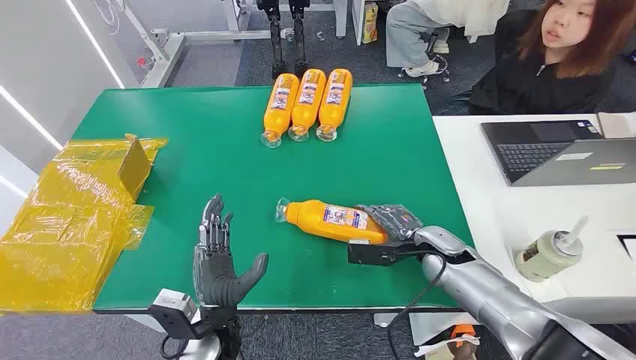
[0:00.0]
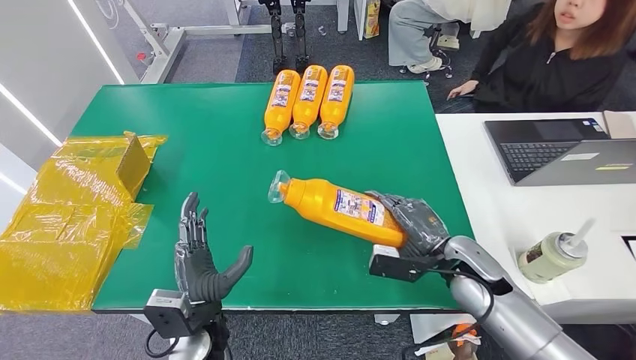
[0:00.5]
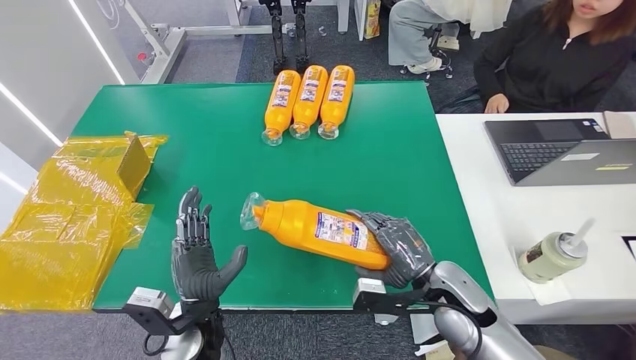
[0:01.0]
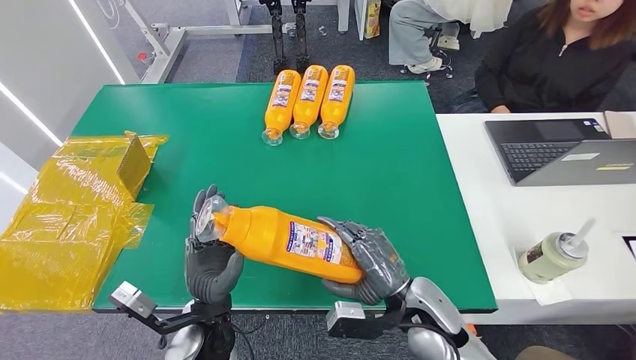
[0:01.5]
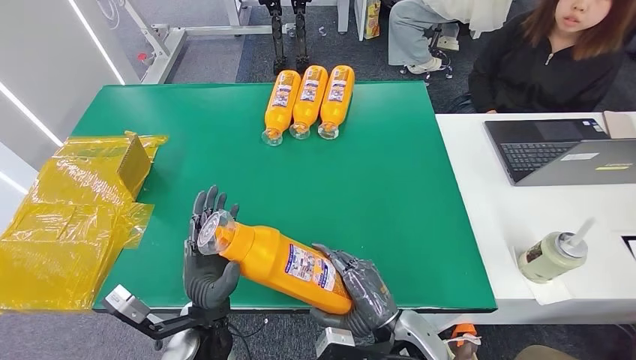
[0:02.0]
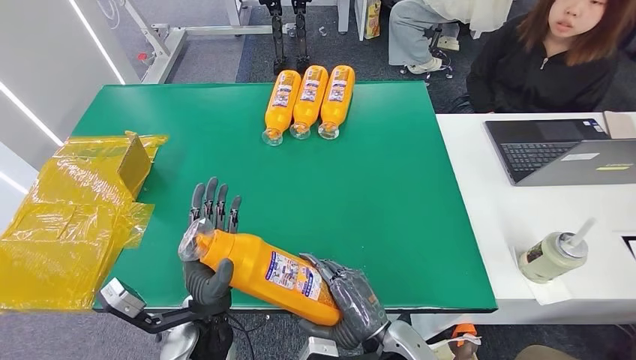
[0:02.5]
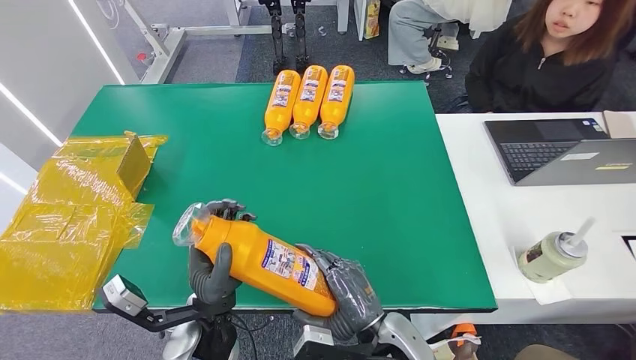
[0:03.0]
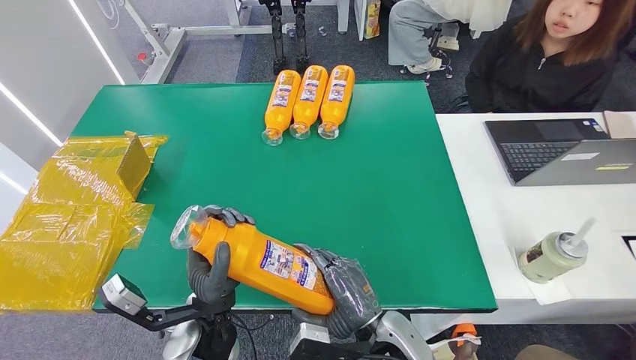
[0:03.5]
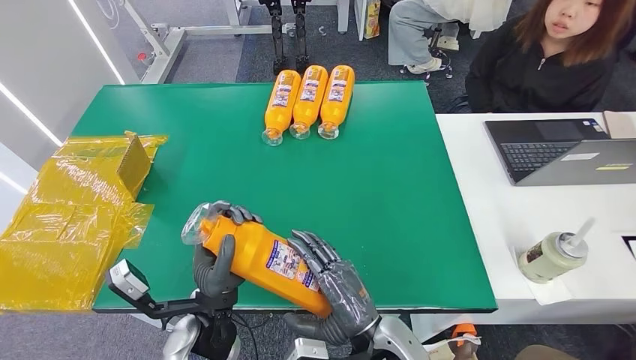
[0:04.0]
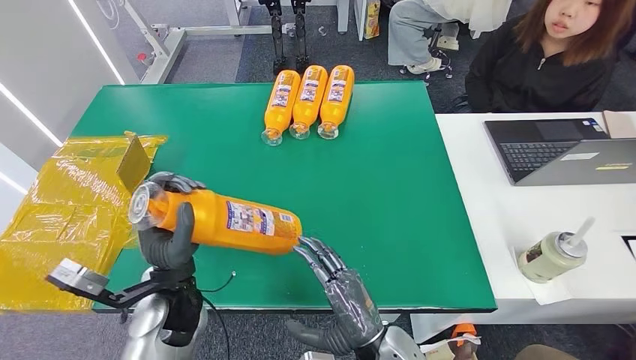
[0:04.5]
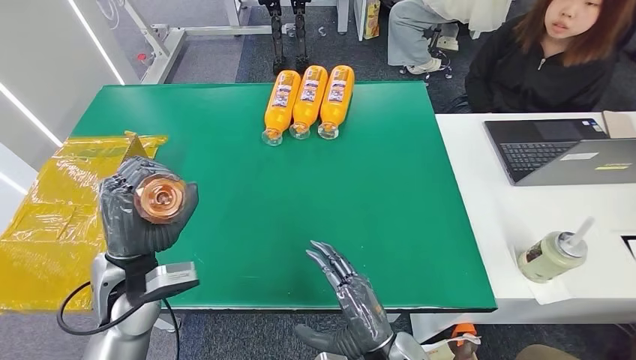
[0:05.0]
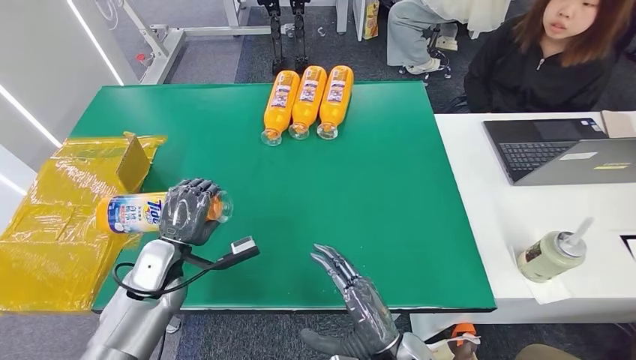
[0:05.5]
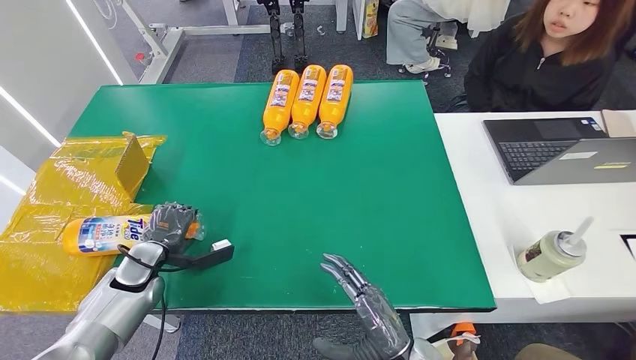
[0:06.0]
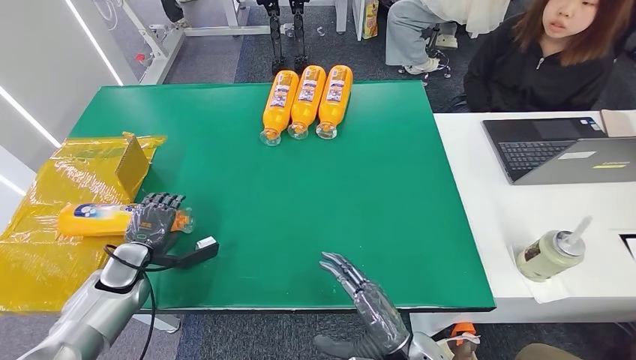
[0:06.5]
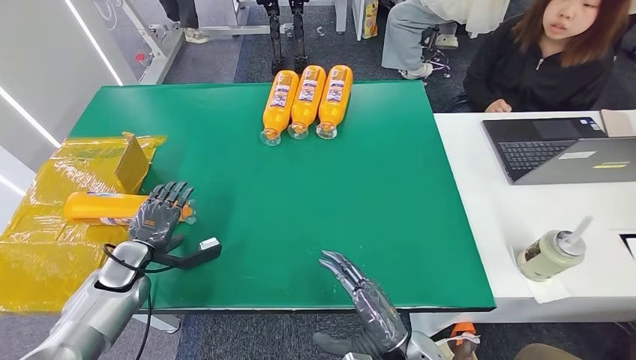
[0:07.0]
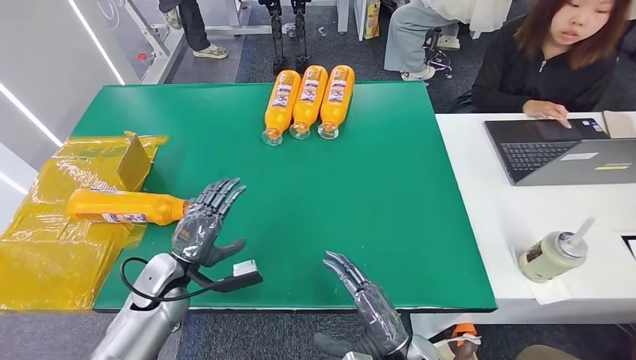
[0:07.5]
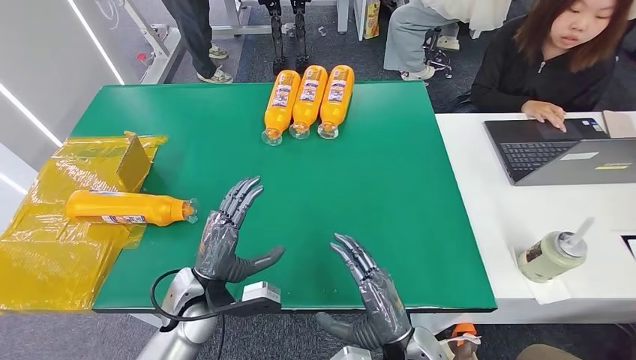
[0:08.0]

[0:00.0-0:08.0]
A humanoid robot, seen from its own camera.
Step, 0:00.0 to 0:02.5: Pick up the bottle from the table.
Step, 0:03.0 to 0:08.0: Turn the bottle to the front side.
0:02.0 to 0:04.0: The right hand shifts by approximately 5 cm.
0:04.0 to 0:06.0: The right hand heads to the right, covering approximately 5 cm; the left hand heads to the left and forward, covering approximately 25 cm.
0:06.0 to 0:08.0: The left hand shifts roughly 15 cm to the right.
